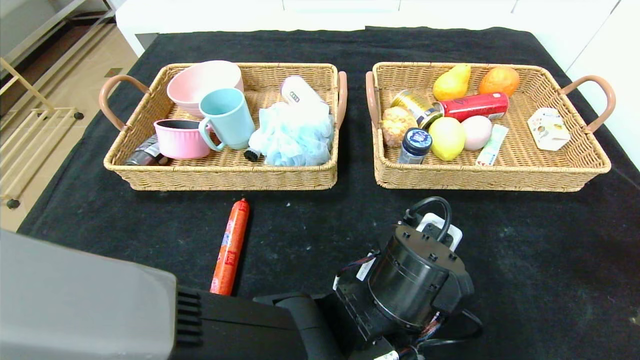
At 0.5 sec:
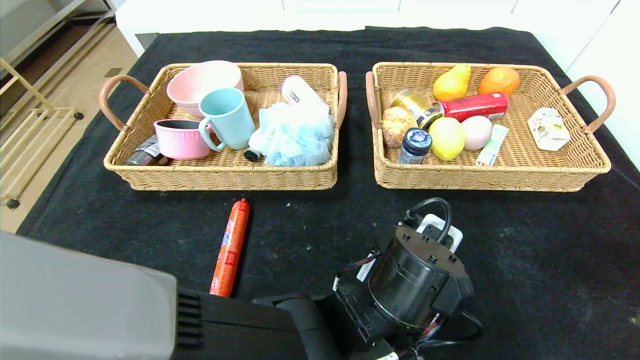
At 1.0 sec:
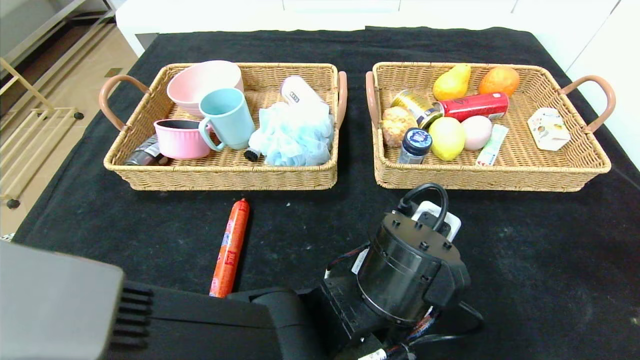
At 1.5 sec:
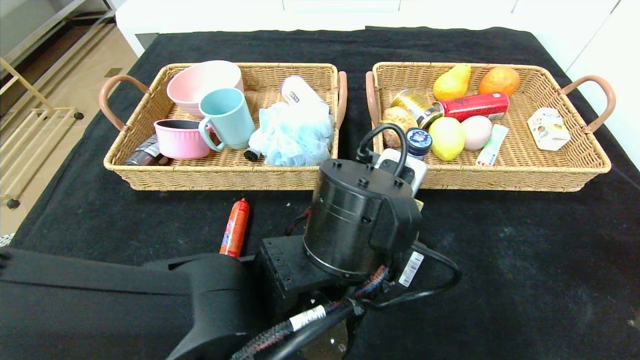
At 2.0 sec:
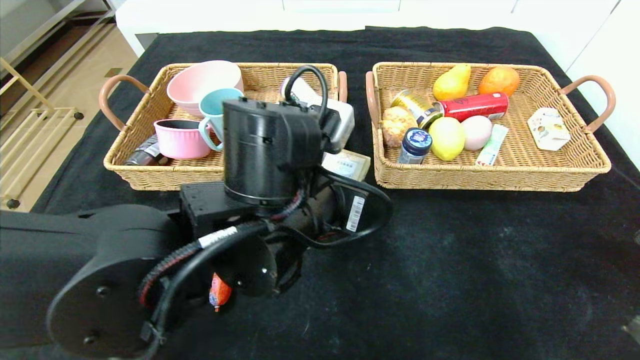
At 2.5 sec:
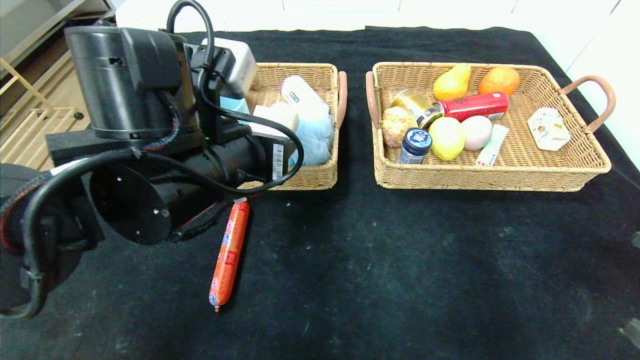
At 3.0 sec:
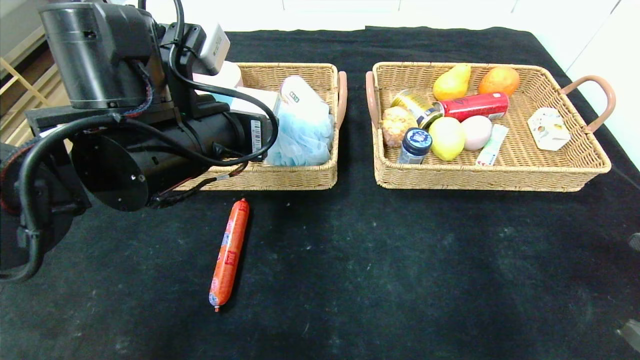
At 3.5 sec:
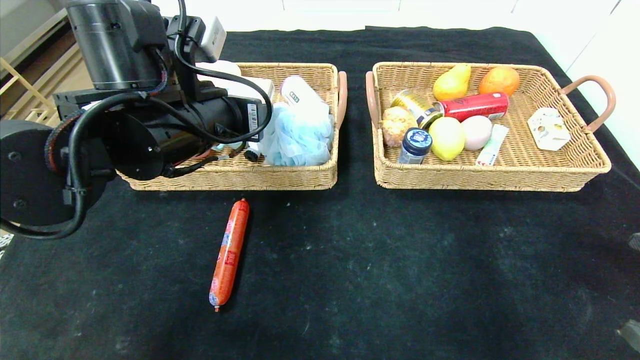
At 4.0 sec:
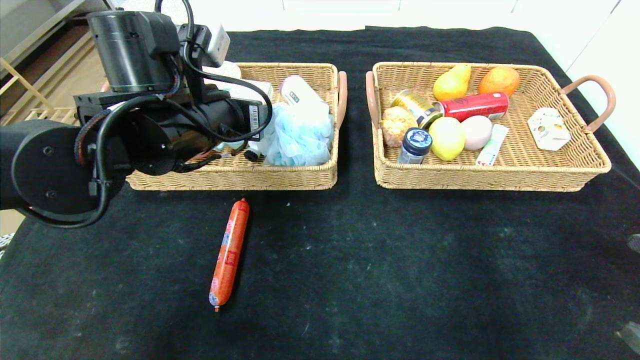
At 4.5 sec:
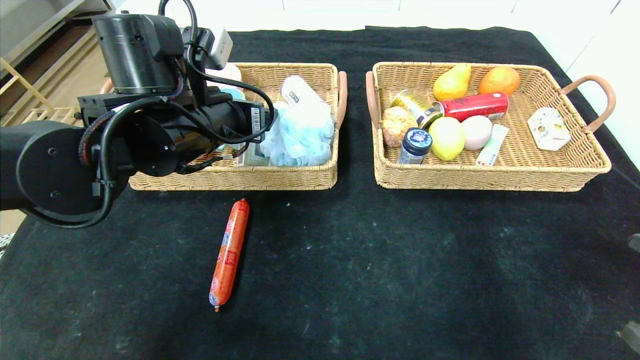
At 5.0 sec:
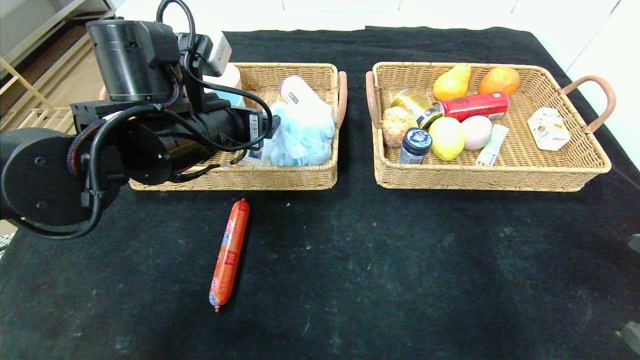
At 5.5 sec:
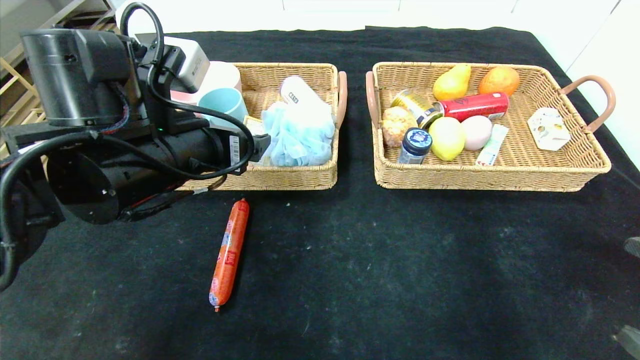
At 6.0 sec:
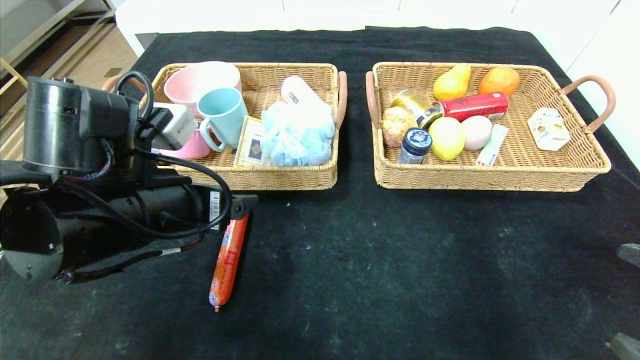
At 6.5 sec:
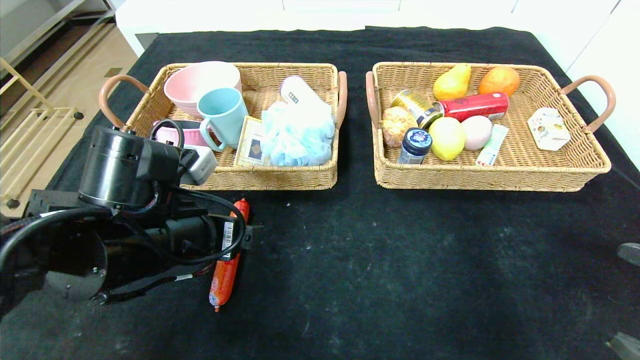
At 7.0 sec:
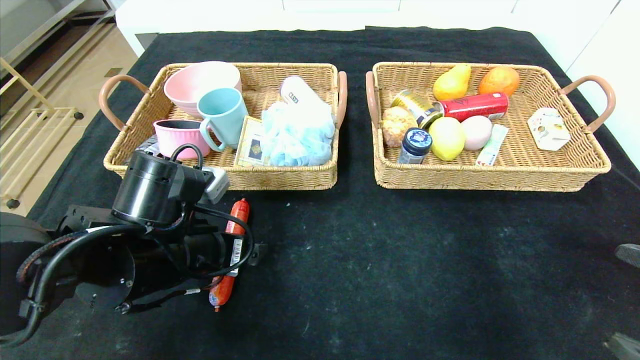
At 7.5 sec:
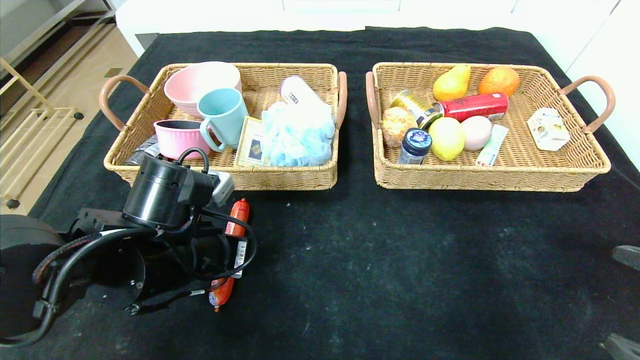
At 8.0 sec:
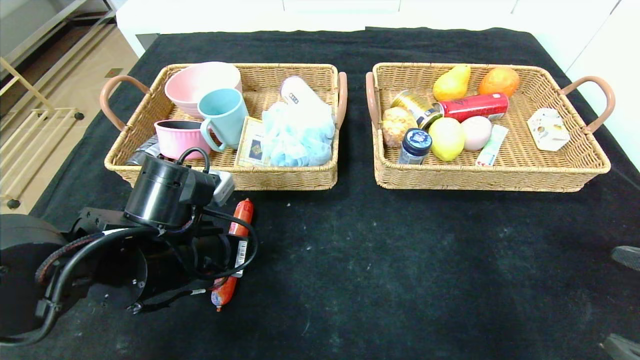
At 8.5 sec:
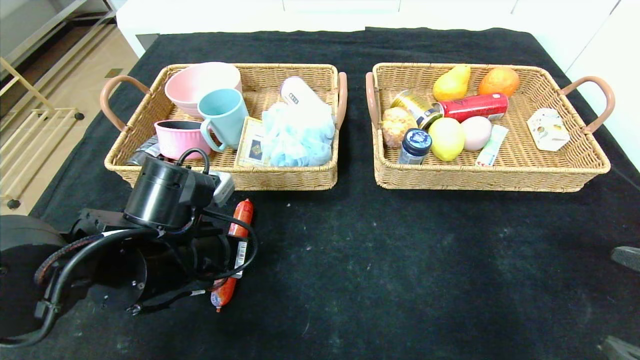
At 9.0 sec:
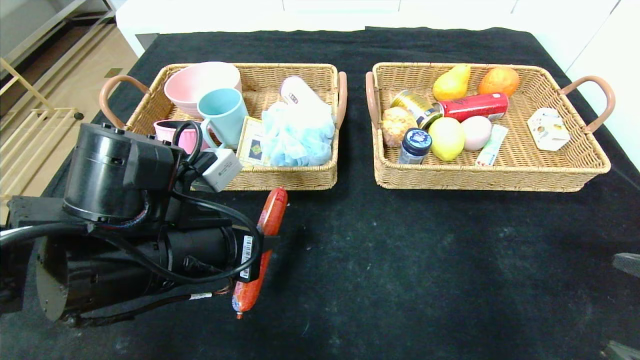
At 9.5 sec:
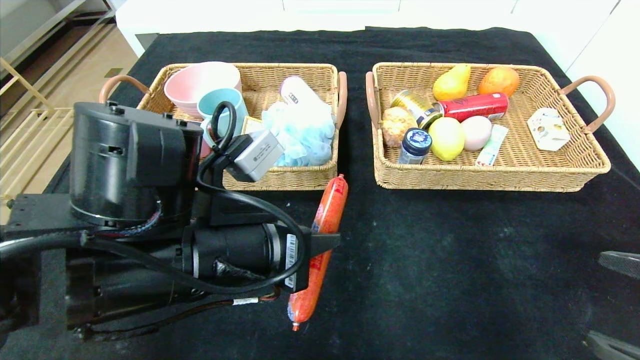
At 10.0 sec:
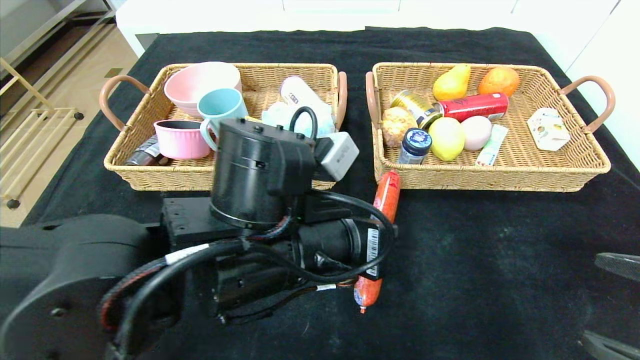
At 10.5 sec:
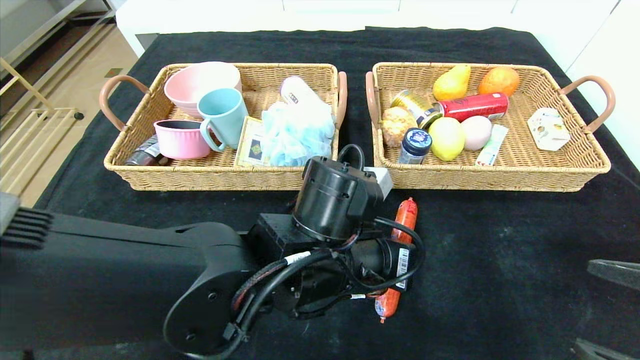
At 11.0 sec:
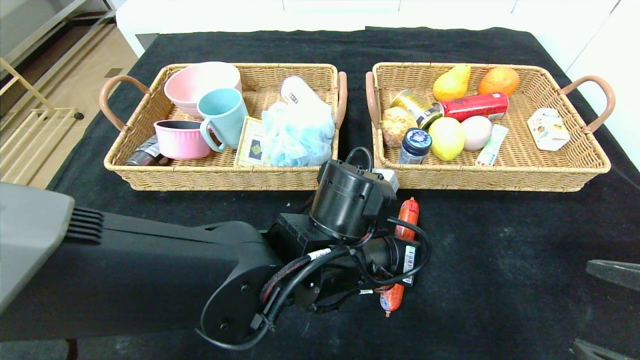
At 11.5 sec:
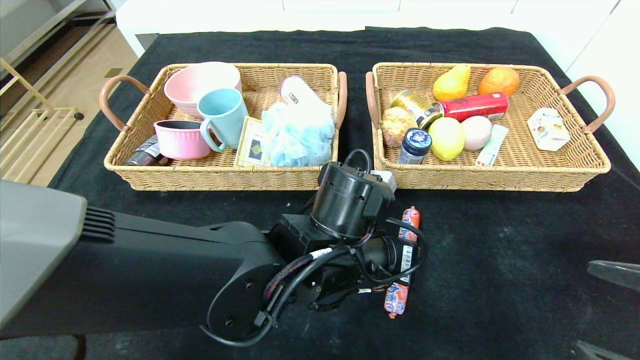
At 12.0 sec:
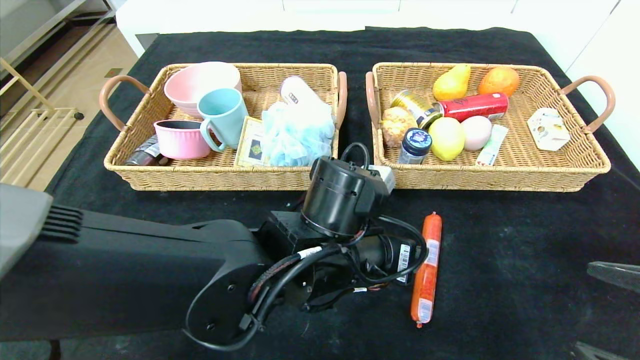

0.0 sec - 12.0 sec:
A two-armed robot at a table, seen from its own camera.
Step, 0.0 sec - 6.0 sec: Pick up the playing cards and put it in the left basket.
0.0 sec - 2.0 sec: The left gripper heads upward and to the left, covering approximately 15 cm.
2.0 sec - 4.0 sec: The left gripper shifts roughly 15 cm to the left, forward and upward.
4.0 sec - 6.0 sec: The left gripper shifts about 10 cm backward, and opens.
6.0 sec - 8.0 sec: The left gripper is displaced downward by approximately 5 cm, and closes.
8.0 sec - 10.0 sec: The left gripper goes about 15 cm to the right.
10.0 sec - 12.0 sec: The left gripper changes place by roughly 5 cm, and opens.

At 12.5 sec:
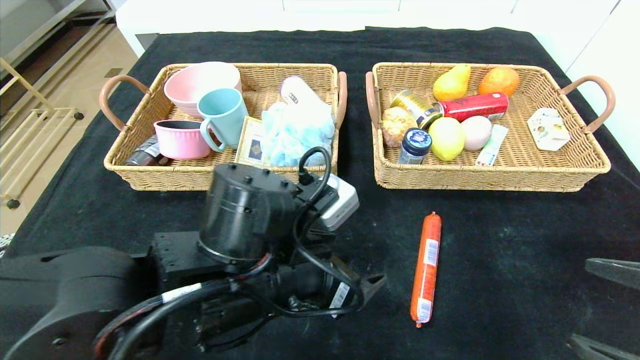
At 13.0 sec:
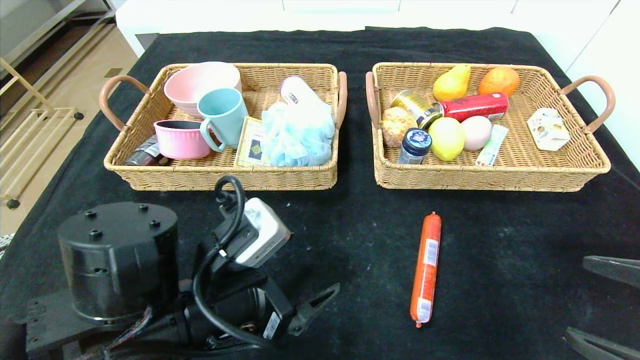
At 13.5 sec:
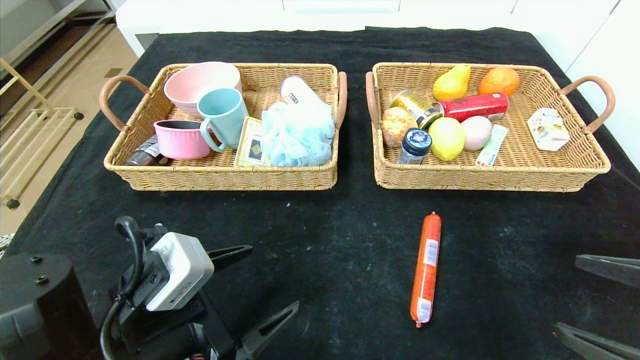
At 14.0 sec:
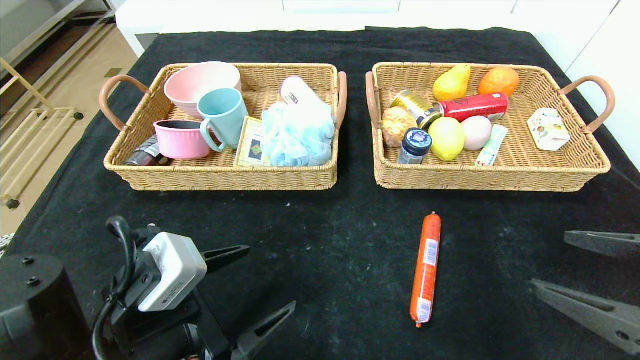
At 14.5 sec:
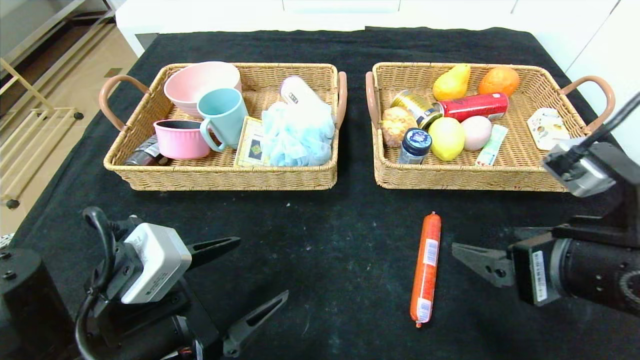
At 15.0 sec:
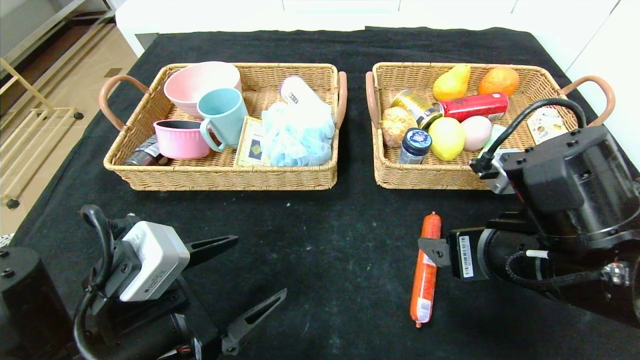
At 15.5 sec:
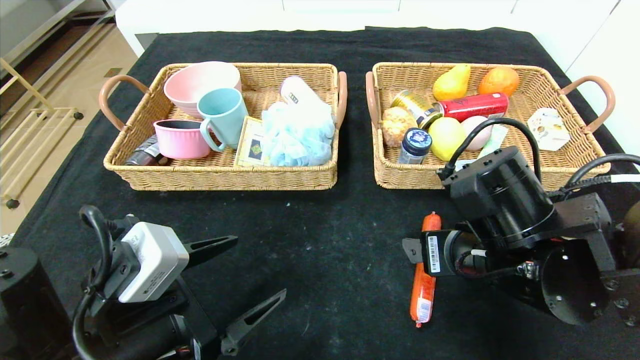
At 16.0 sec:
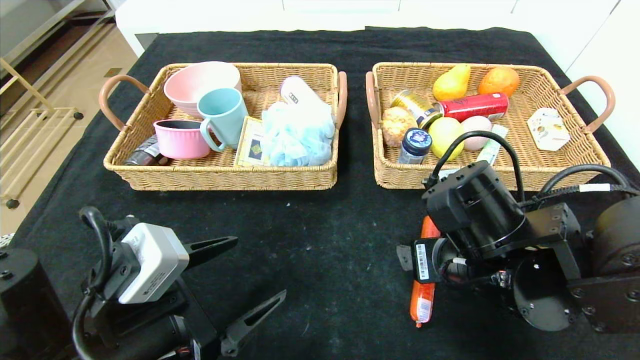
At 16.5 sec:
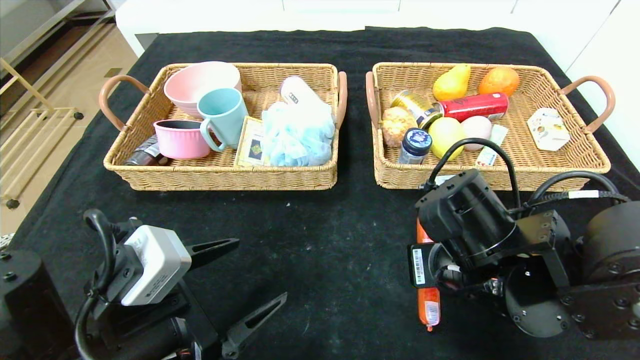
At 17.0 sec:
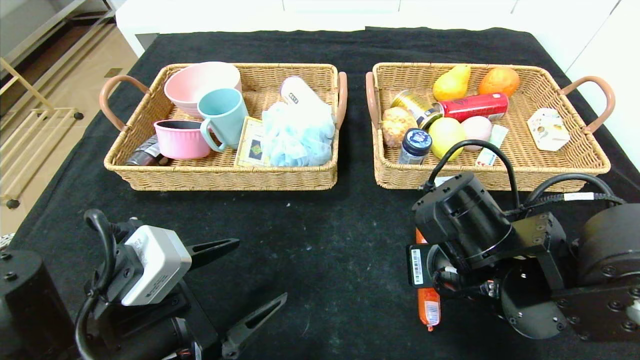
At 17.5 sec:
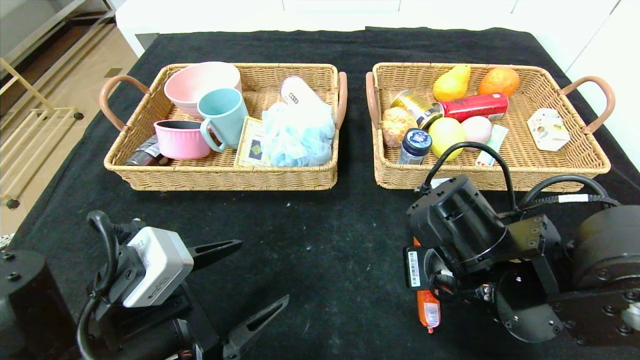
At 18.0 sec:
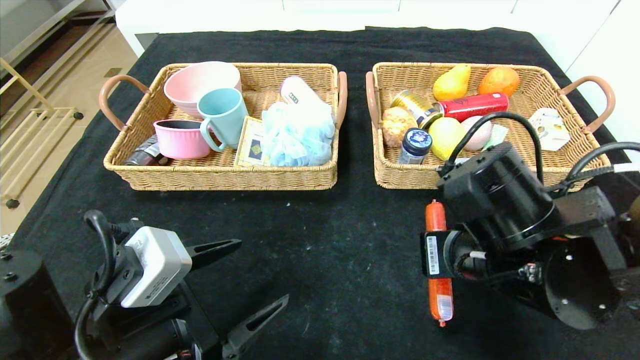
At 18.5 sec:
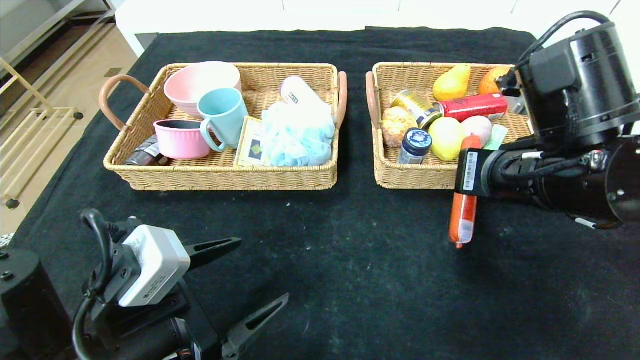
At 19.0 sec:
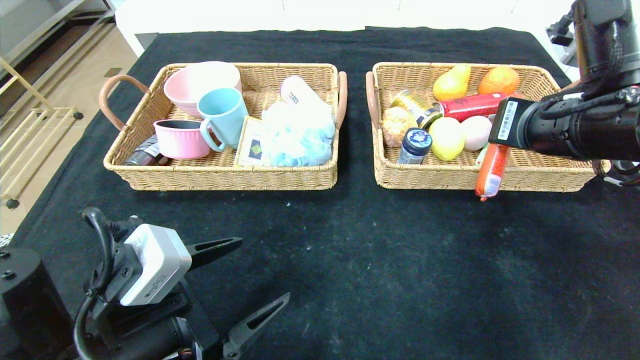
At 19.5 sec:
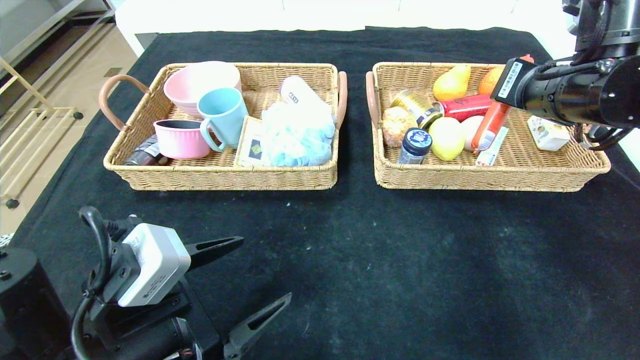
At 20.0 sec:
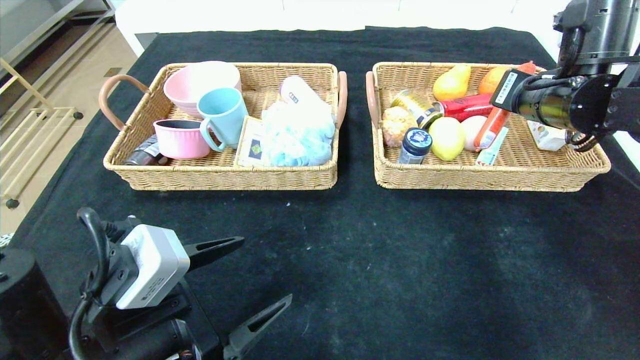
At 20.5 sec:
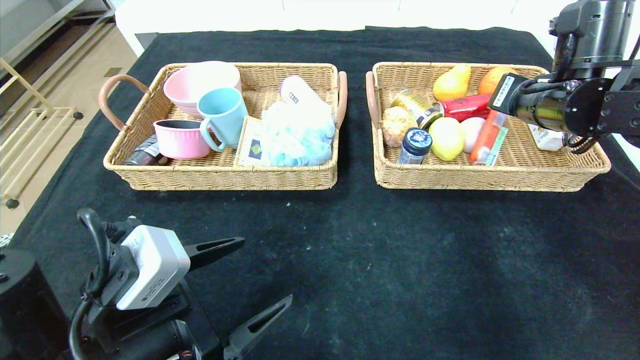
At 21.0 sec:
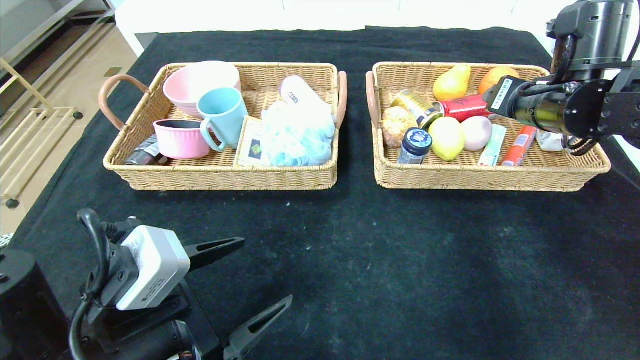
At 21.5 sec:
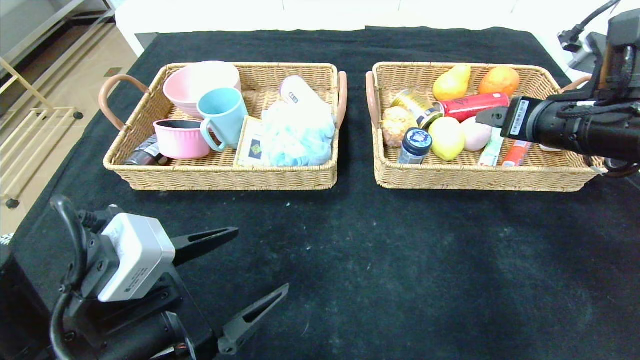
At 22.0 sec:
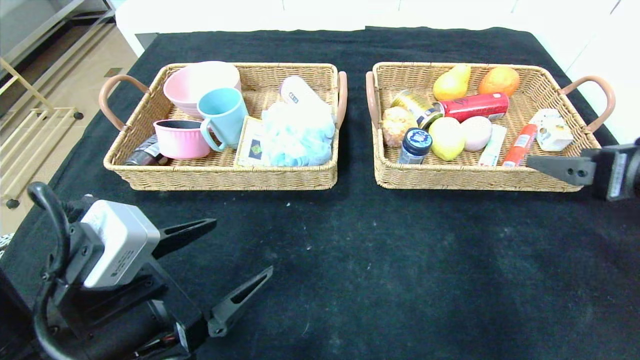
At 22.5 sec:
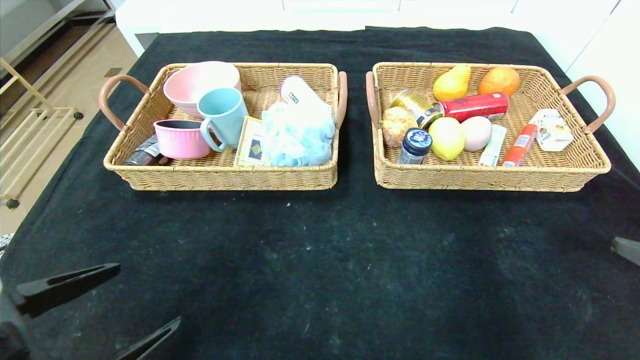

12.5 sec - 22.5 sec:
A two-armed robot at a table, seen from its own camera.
Step, 13.0 sec - 22.0 sec: Pick up the sausage and put it in the right basket.
12.5 sec - 14.5 sec: The left gripper shifts about 15 cm to the left and backward; the right gripper moves to the left and forward, about 10 cm.
14.5 sec - 16.5 sec: The right gripper goes some 10 cm to the left, forward and downward, and closes up.
16.5 sec - 18.5 sec: The right gripper goes approximately 10 cm upward.
18.5 sec - 20.5 sec: The right gripper moves forward and to the right, roughly 15 cm.
20.5 sec - 22.5 sec: The right gripper heads backward, covering some 25 cm, and opens its fingers. Meanwhile the left gripper shifts roughly 10 cm backward and to the left.
